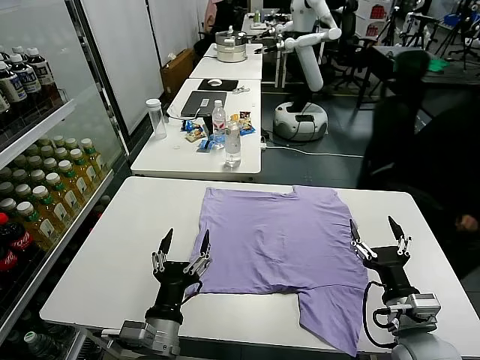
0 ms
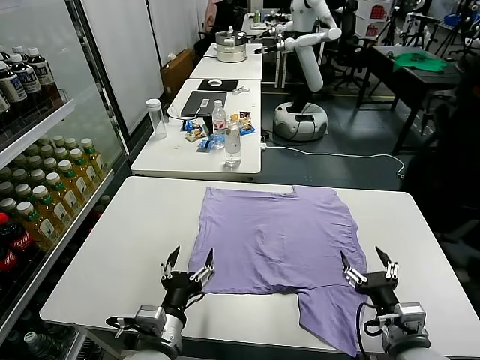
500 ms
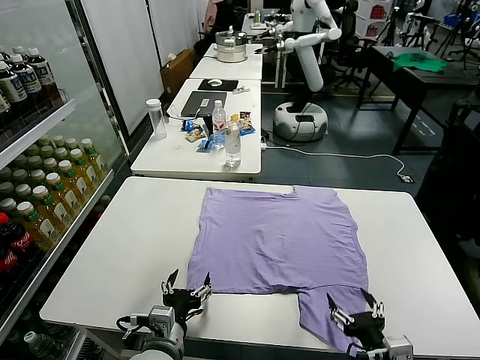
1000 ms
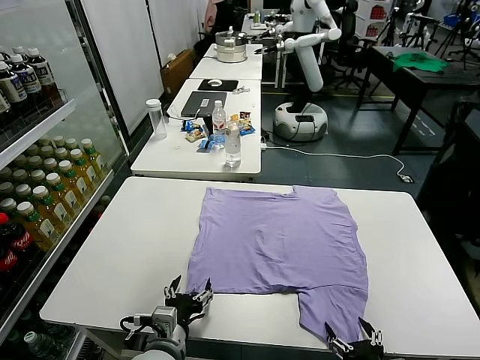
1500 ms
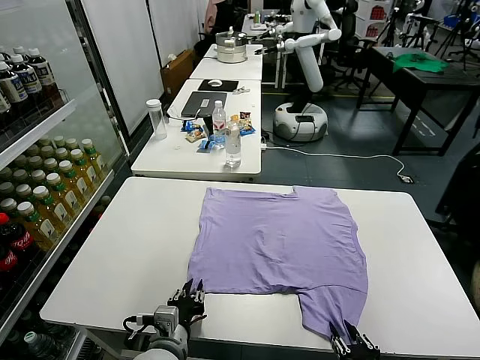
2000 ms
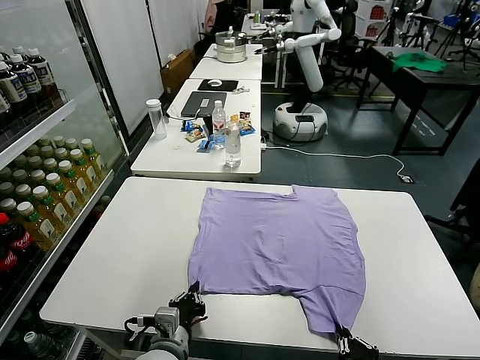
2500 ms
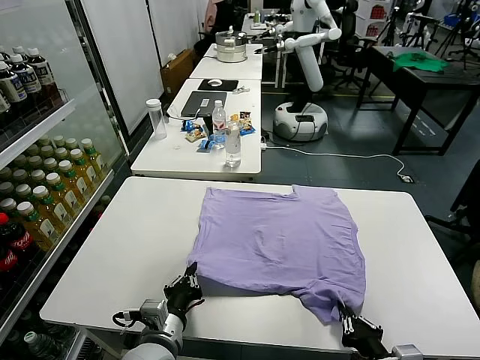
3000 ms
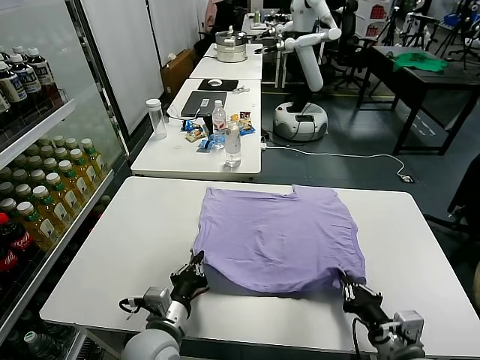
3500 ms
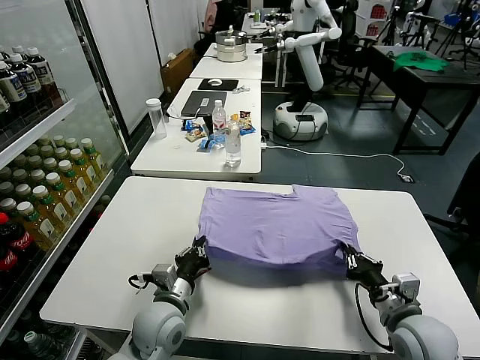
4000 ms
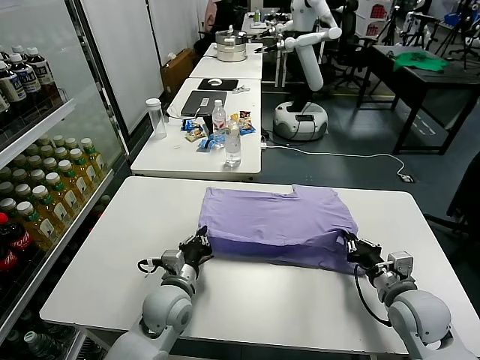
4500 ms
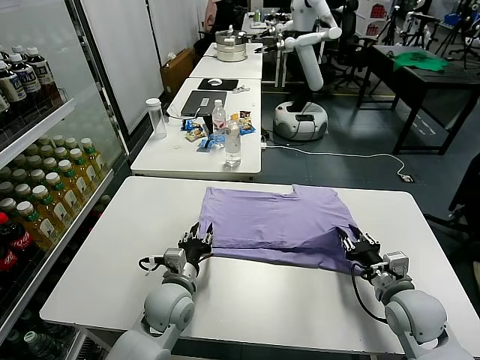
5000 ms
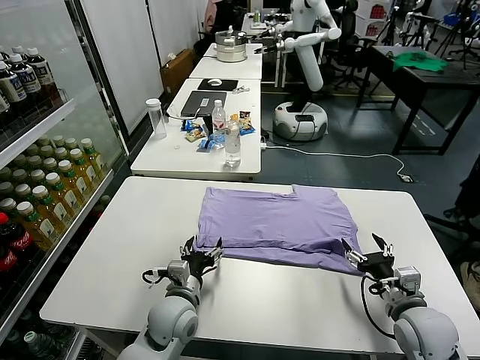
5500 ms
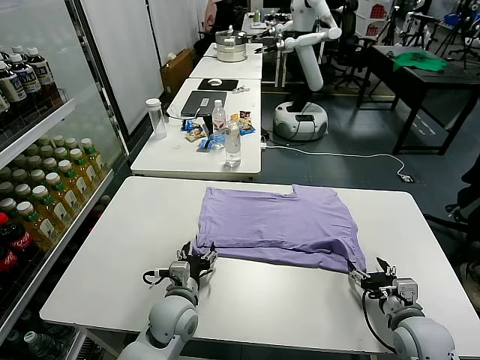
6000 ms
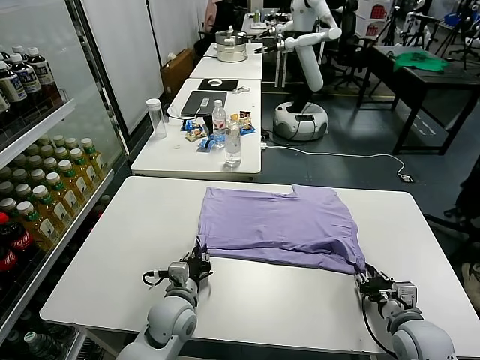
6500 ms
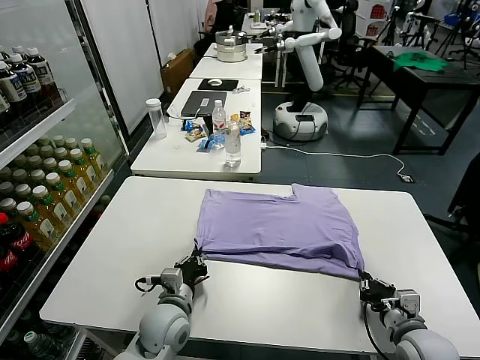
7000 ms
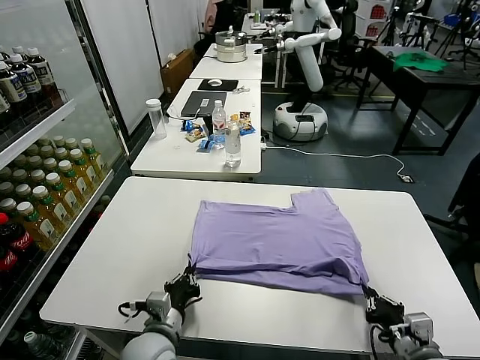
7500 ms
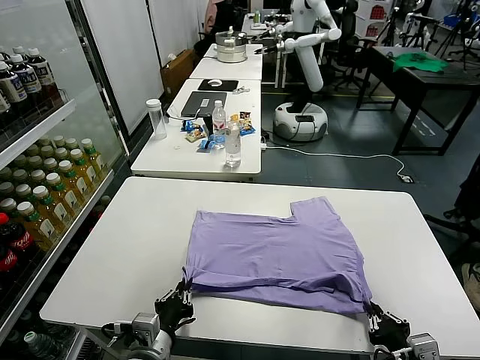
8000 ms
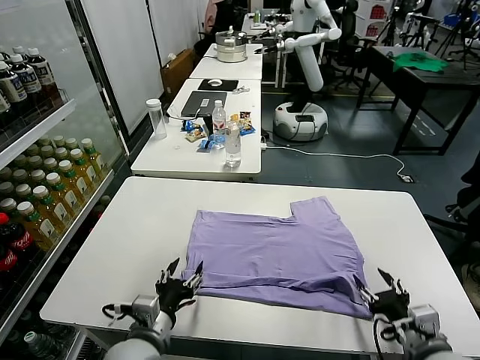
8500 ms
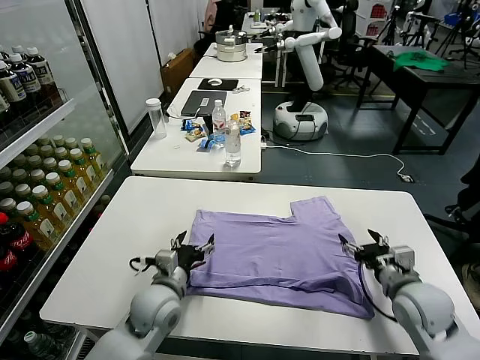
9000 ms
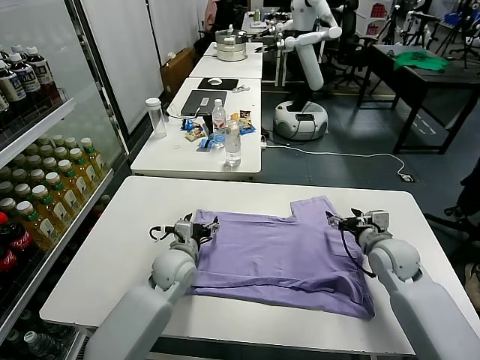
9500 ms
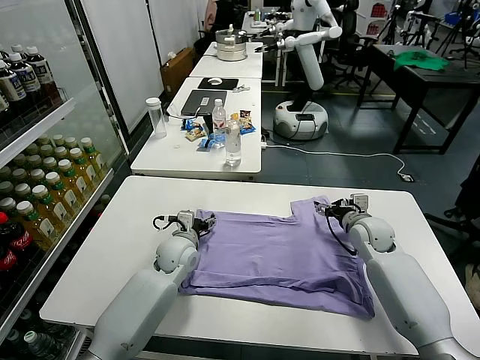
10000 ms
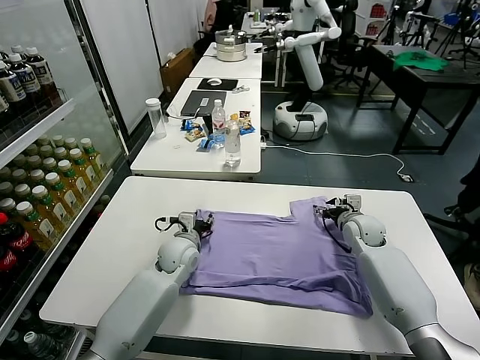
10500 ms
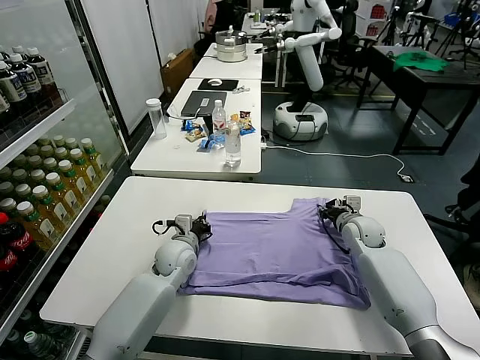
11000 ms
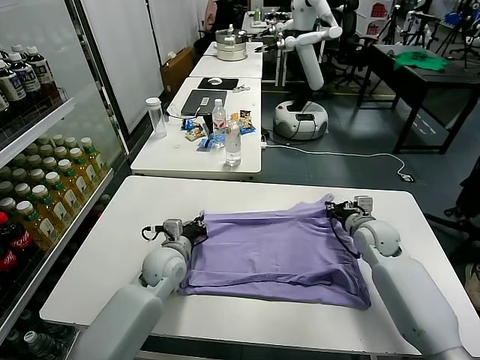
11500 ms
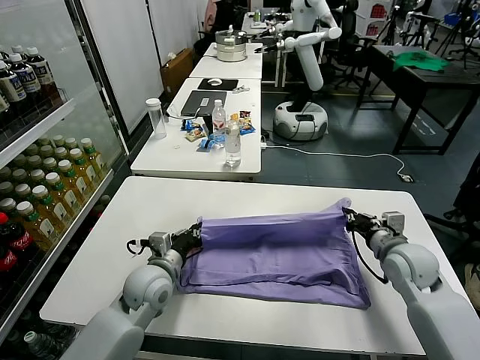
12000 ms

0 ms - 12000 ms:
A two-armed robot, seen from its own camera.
Task of the whole recording: fold and organize the clothes.
Step, 0 ms - 2000 ms: use both grippers simultaneously to clamp the lower edge of the clothing fabric.
Step, 2500 ms - 5000 ms: use both grippers to drag the lower edge of the fabric forward and fold it over the upper edge.
Step, 5500 ms - 8000 ms: Drag the clothes downward with both gripper.
Step, 8500 ms - 10500 ms: use both grippers simultaneously to clamp the upper edge of the clothing fabric.
2000 ms - 4000 ms: The left gripper goes approximately 10 cm forward. Meanwhile the right gripper shifts some 15 cm forward.
4000 ms - 6000 ms: The right gripper moves downward, some 5 cm, and opens its fingers. Meanwhile the left gripper opens up.
6000 ms - 8000 ms: The grippers both shift backward by some 15 cm. The right gripper closes its fingers. The left gripper closes up.
8000 ms - 10000 ms: Both grippers move forward, some 30 cm. The right gripper opens; the left gripper opens up.
10000 ms - 12000 ms: Both grippers move backward, approximately 10 cm. The left gripper closes; the right gripper closes.

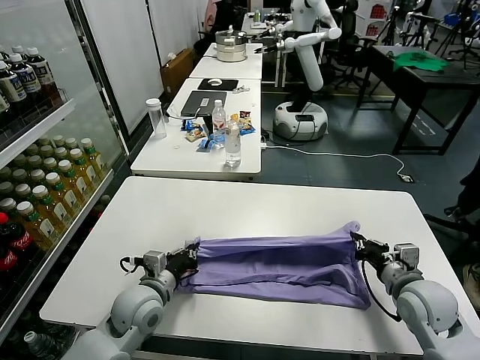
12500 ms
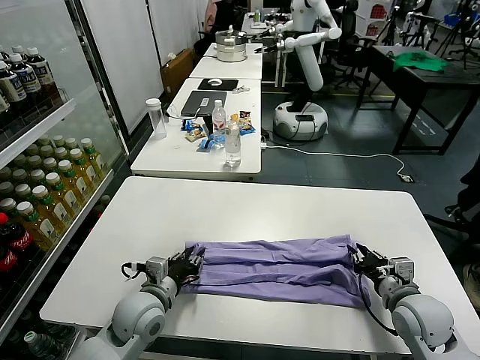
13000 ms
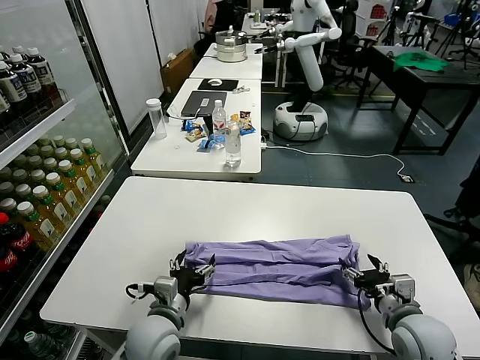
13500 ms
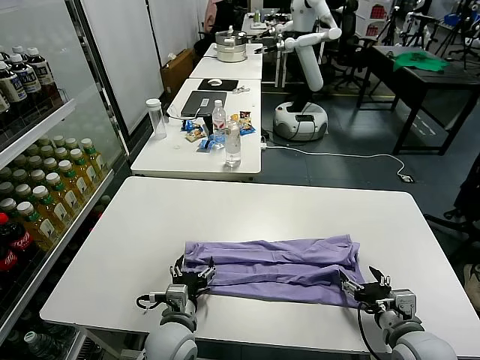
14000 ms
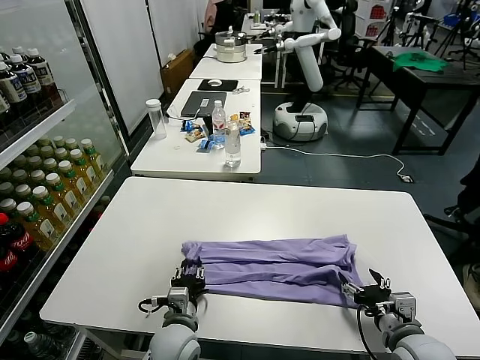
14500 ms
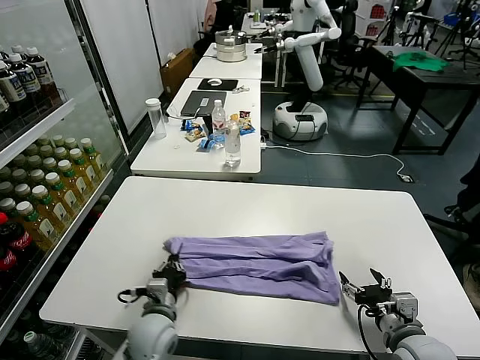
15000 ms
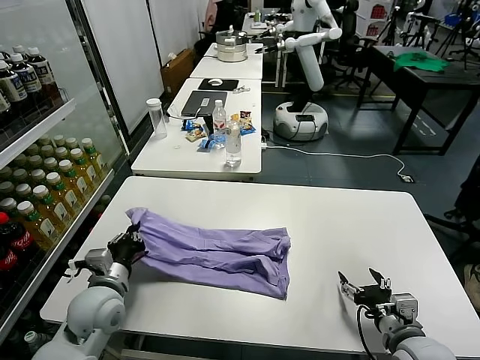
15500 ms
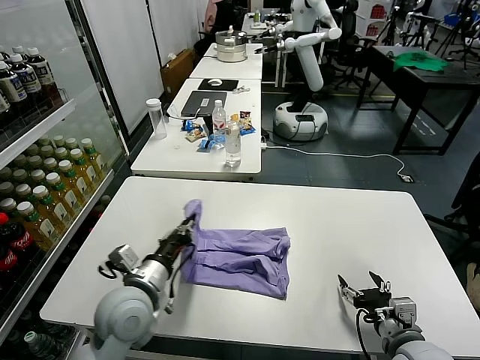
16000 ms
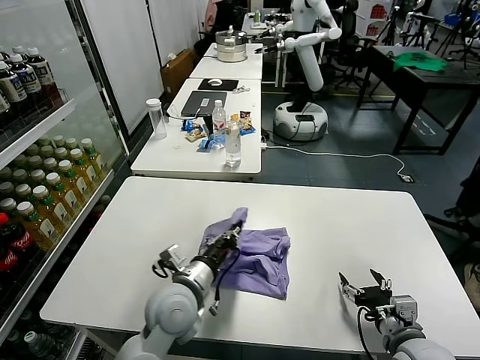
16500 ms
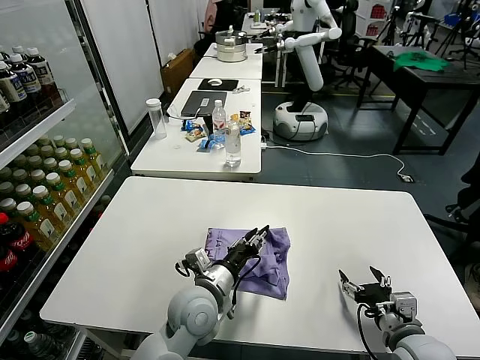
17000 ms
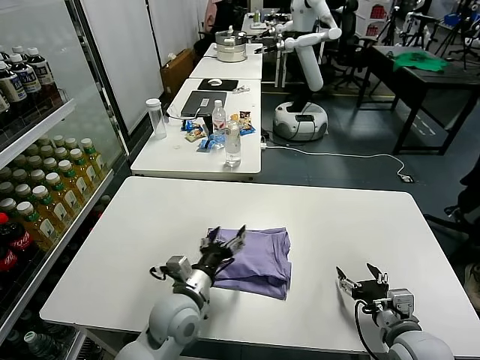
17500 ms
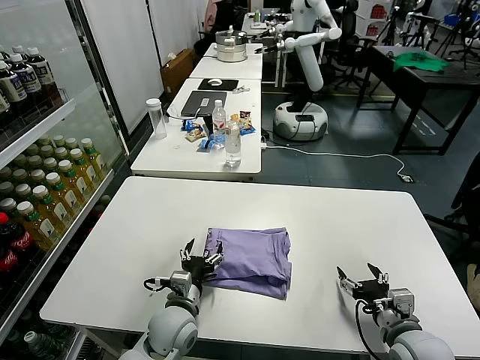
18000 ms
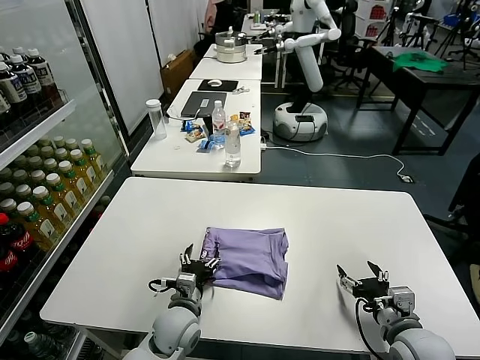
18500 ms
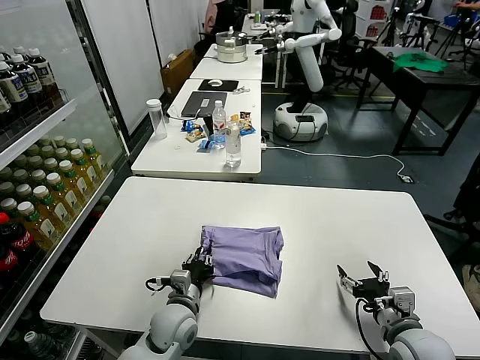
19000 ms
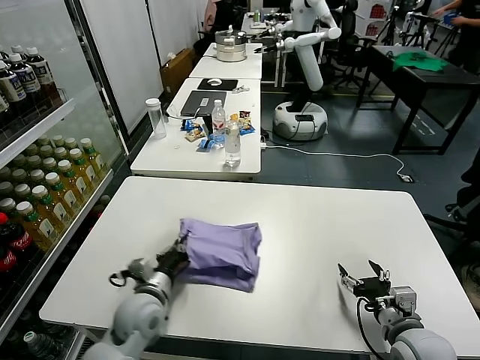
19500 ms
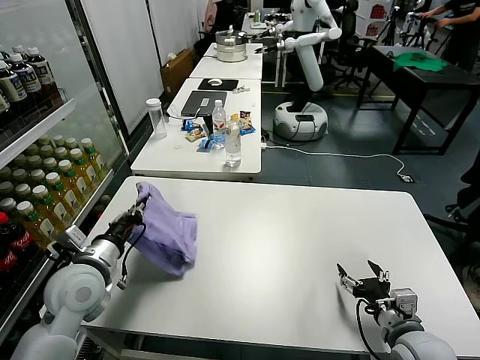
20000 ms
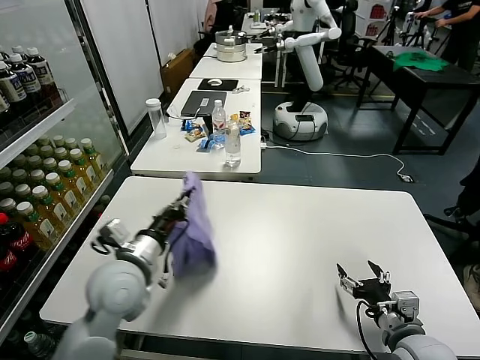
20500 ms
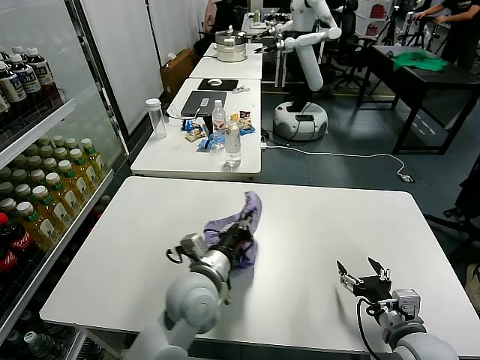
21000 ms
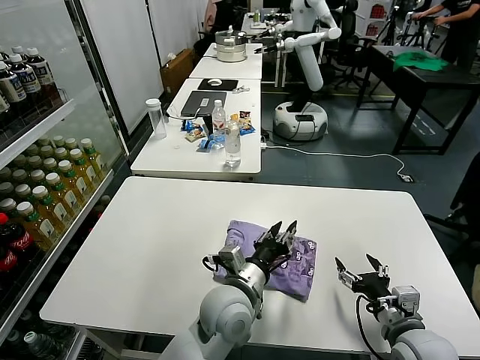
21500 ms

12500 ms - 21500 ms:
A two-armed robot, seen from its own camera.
Task of the whole recording: fold and organize the clothes.
Step, 14000 ms - 14500 ms: use the left gripper to clamp the left edge of the fabric.
Step, 15000 ms - 17000 ms: use the left gripper to drag the left edge of the fabric to the left and folds it over the right edge.
12500 ms - 14500 ms: The left gripper goes roughly 10 cm to the right, downward and backward, and opens up. The right gripper goes some 10 cm backward, and opens.
14500 ms - 17000 ms: The left gripper goes roughly 10 cm upward, goes to the left and returns, some 15 cm each way, and closes and opens again.
17000 ms - 19500 ms: The left gripper is displaced to the left by some 10 cm, and closes.
19500 ms - 21500 ms: The left gripper shifts approximately 20 cm to the right and upward, and opens up.

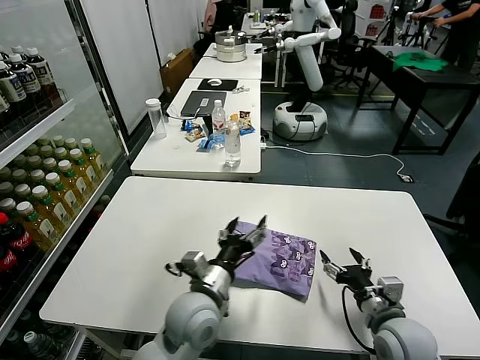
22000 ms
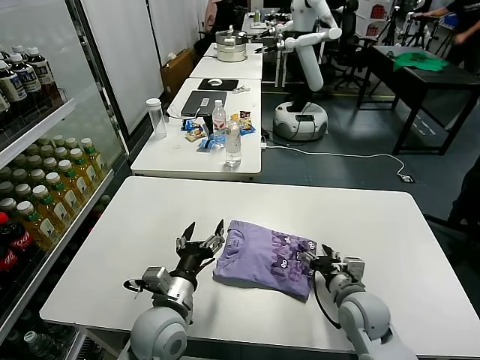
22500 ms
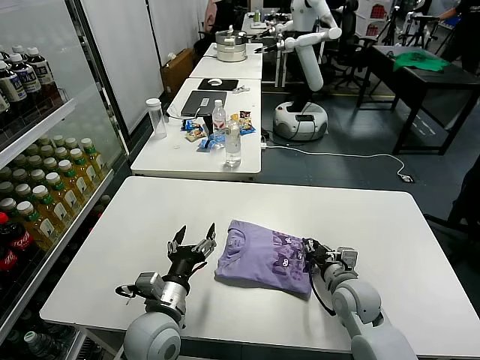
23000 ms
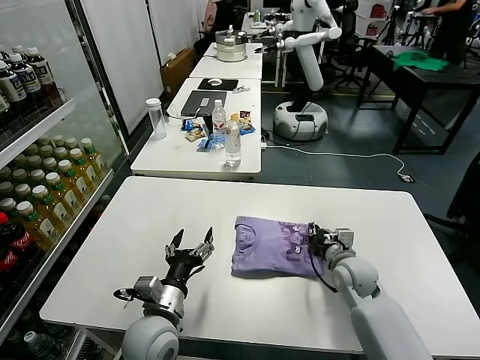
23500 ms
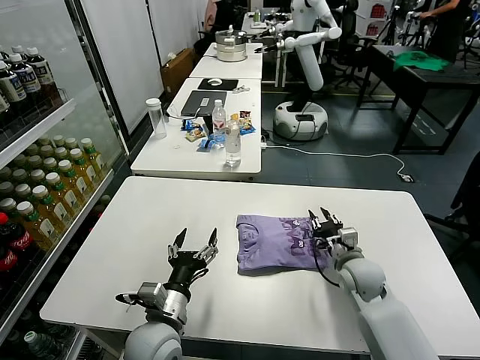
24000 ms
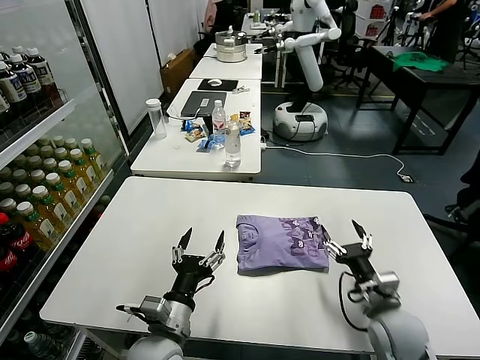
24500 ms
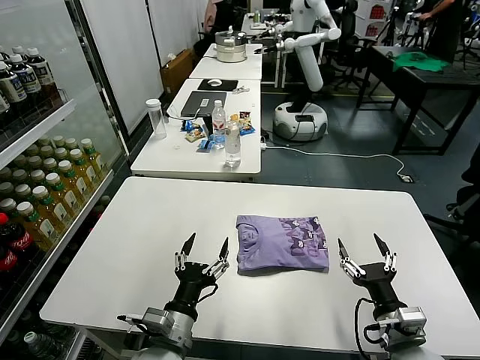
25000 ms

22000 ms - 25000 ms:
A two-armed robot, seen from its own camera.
Task of the whole recording: fold and organize the clothes.
Step, 22000 ms - 24000 ms: Drag the clothes to the center of the table.
22000 ms - 23500 ms: The left gripper is displaced to the left by roughly 10 cm. Meanwhile the right gripper travels forward by roughly 15 cm, and closes up.
23500 ms - 25000 ms: The right gripper is displaced backward by approximately 20 cm, and opens its fingers. The left gripper moves backward, some 5 cm.
